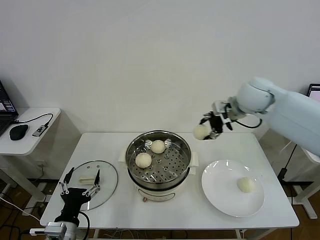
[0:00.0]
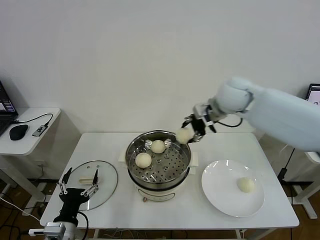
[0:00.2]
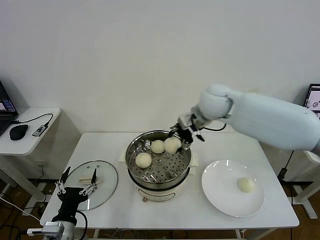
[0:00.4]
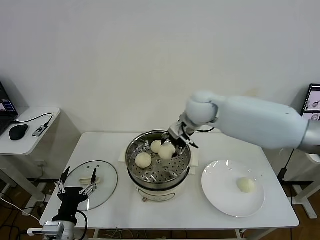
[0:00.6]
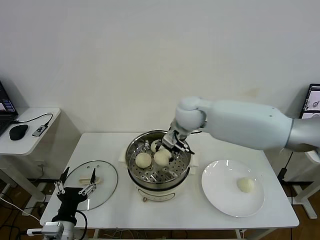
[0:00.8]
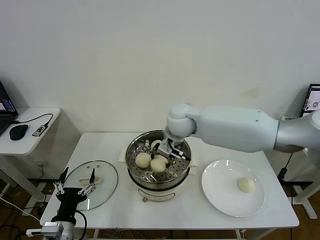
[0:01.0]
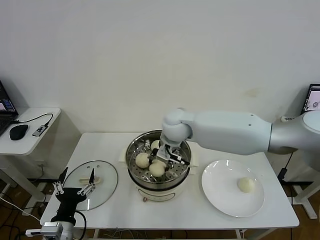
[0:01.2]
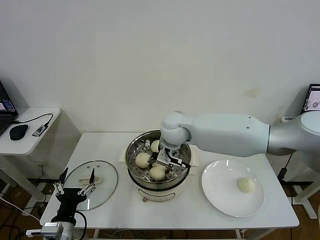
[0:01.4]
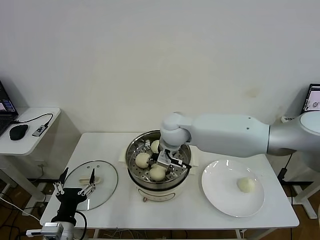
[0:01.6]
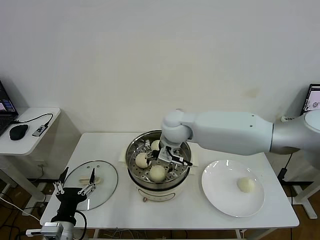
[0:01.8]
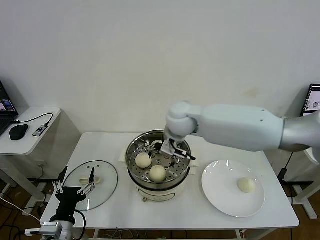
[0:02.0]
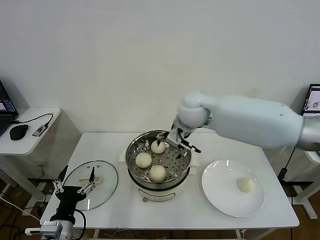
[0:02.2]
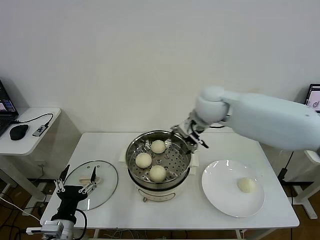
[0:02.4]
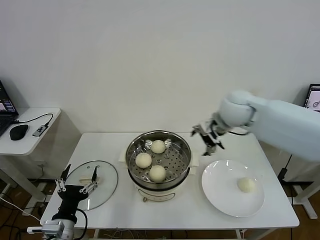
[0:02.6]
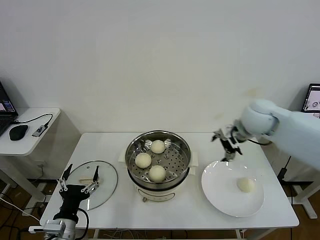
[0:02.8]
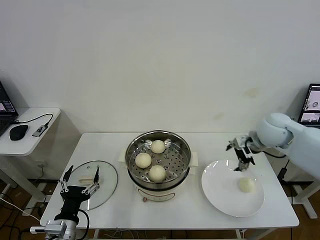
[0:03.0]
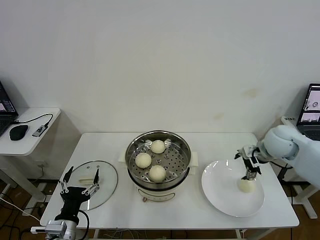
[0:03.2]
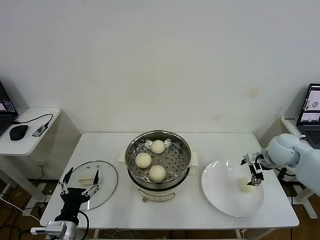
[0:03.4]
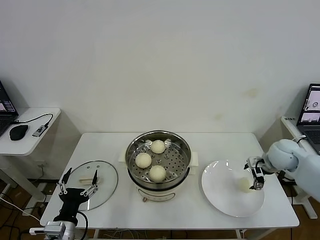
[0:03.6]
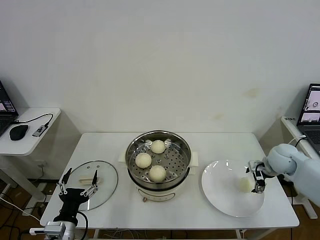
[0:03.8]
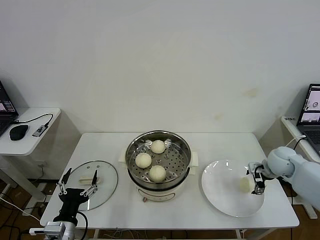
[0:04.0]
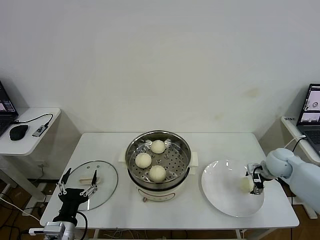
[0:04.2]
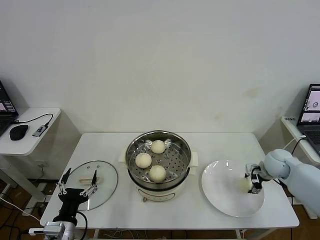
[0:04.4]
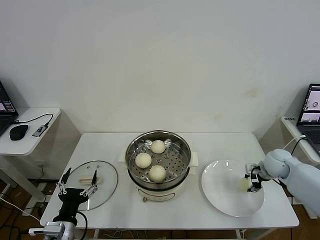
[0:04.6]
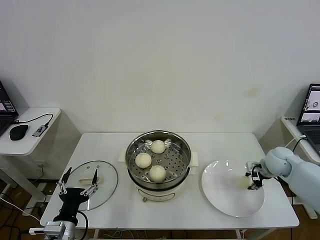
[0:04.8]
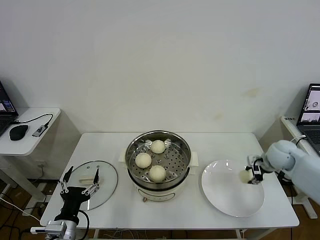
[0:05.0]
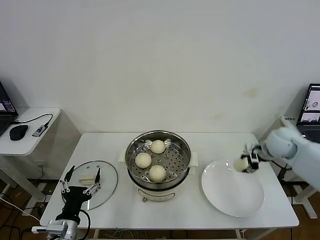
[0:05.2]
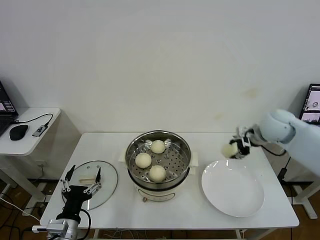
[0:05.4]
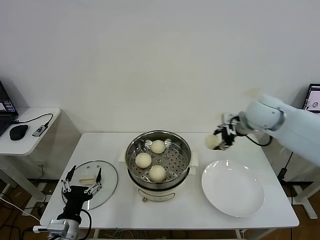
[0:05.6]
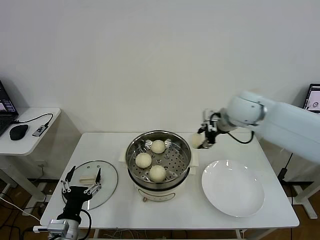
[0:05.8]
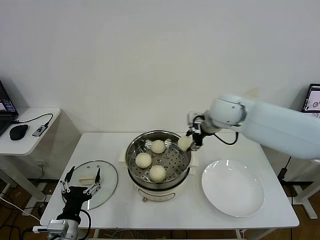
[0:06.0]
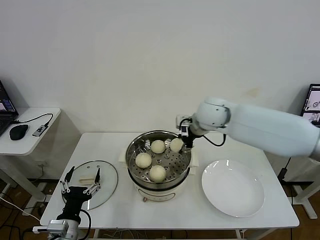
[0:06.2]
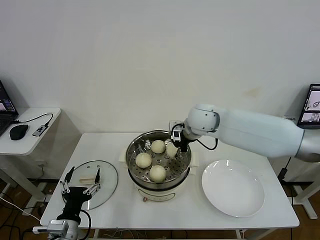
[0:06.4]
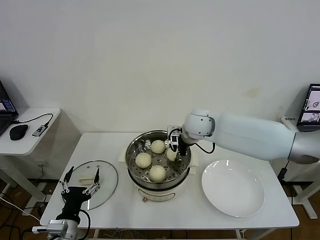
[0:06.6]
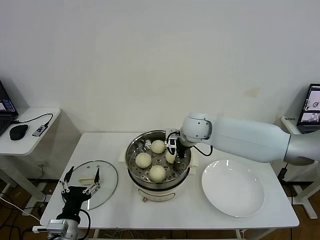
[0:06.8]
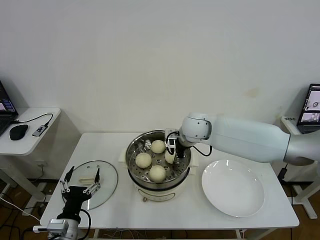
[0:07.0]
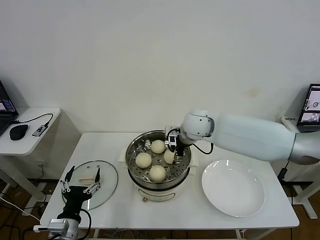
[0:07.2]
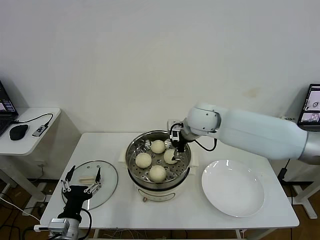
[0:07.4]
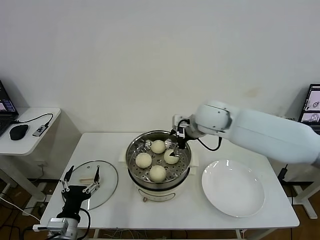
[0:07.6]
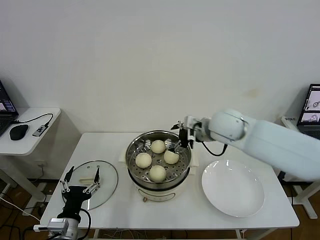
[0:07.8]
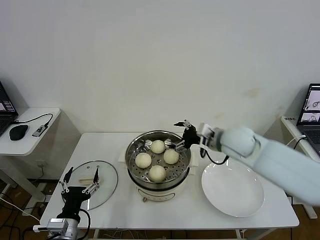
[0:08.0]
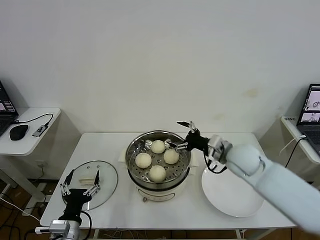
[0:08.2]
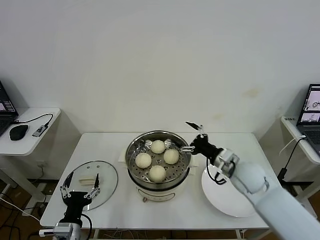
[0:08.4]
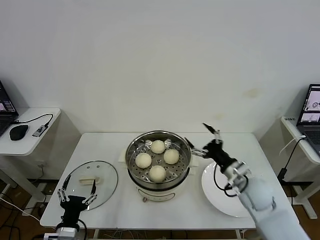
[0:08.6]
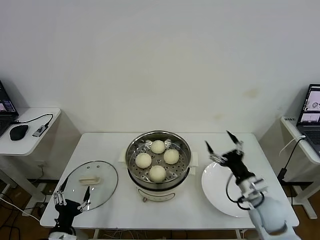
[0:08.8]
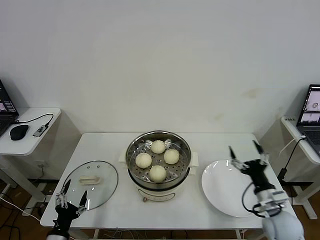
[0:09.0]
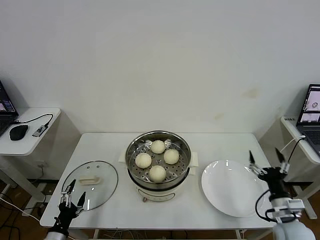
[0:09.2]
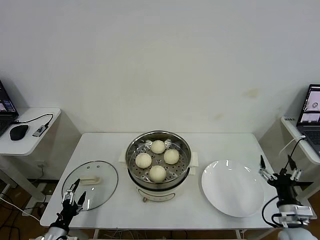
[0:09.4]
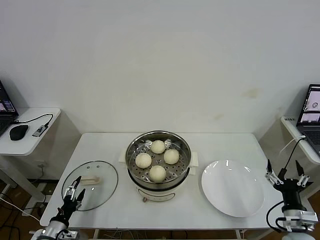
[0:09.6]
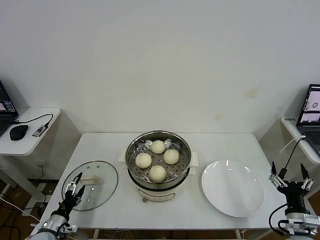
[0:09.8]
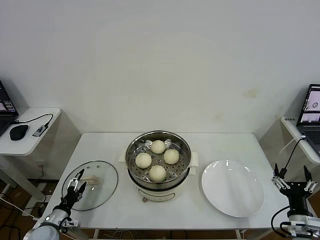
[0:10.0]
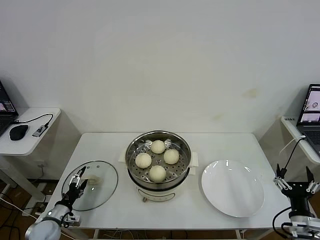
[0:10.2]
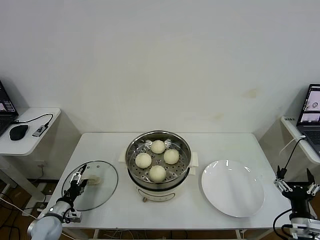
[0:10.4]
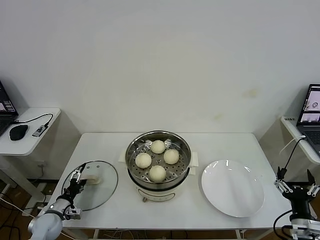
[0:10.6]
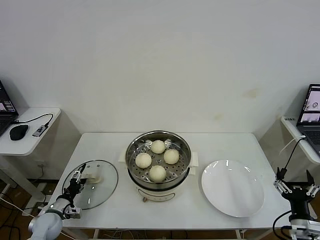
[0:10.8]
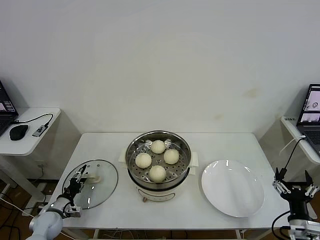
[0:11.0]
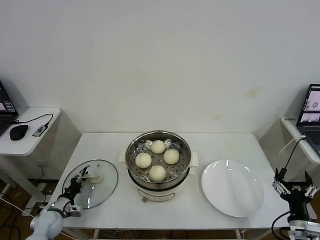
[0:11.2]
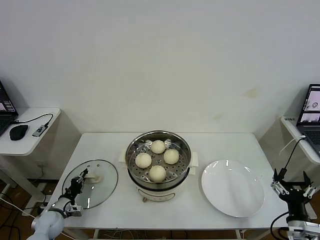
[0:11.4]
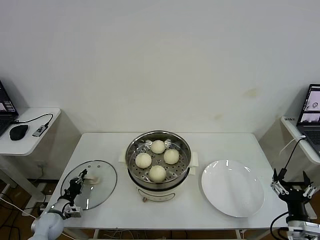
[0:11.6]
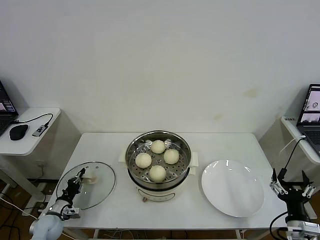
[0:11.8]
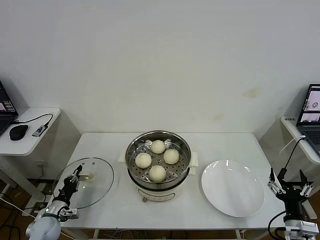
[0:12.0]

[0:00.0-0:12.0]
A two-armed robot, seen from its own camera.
Task of the whole recording: take steamed baozi put them in steamer then cover it.
Step, 0:00.0 to 0:01.8: Place the baozi on the steamer with right gripper.
Step, 0:02.0 to 0:04.6: Grasp the baozi in the plate with right gripper.
Step, 0:05.0 to 0:07.4: Place the baozi on the steamer with right gripper.
Step, 0:07.6 to 0:11.6: Grasp the pot lid with left gripper.
0:00.0 to 0:01.6: The right gripper shifts about 20 cm to the left and downward, and opens up.
0:01.6 to 0:03.0: The right gripper goes approximately 30 cm to the right, and opens.
0:03.0 to 0:04.4: The right gripper goes roughly 15 cm downward and to the right, and closes its fingers.
0:04.4 to 0:06.0: The right gripper heads to the left and upward, covering roughly 30 cm.
0:06.0 to 0:07.6: The right gripper opens its fingers.
0:07.6 to 0:09.0: The right gripper goes approximately 40 cm backward, downward and to the right. The left gripper moves downward and to the left, approximately 10 cm.
0:09.0 to 0:10.4: The left gripper travels forward, to the left and downward by about 15 cm. Meanwhile the right gripper moves backward and to the right, approximately 10 cm.
0:10.4 to 0:12.0: The left gripper closes.

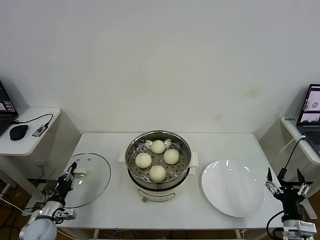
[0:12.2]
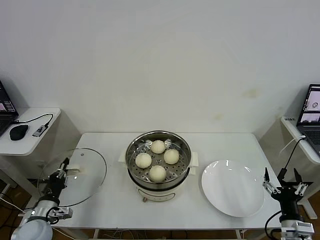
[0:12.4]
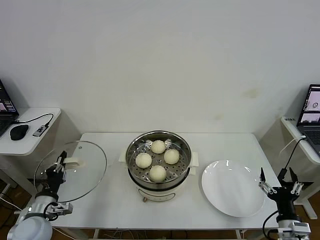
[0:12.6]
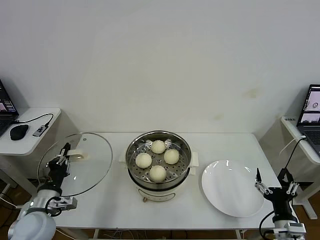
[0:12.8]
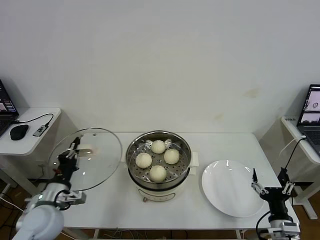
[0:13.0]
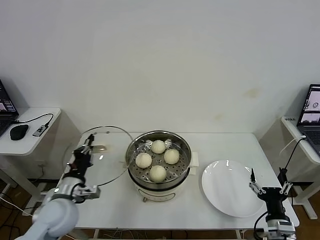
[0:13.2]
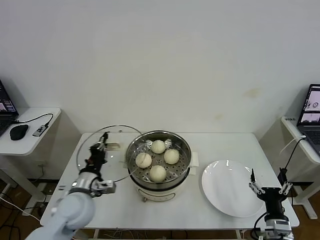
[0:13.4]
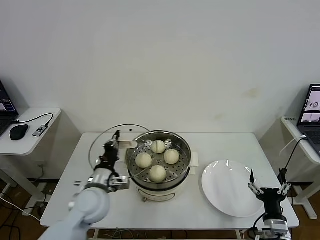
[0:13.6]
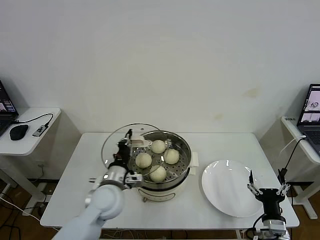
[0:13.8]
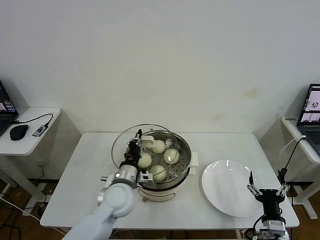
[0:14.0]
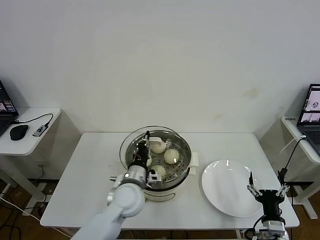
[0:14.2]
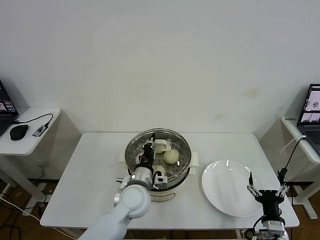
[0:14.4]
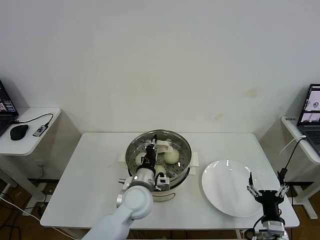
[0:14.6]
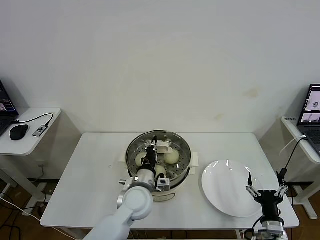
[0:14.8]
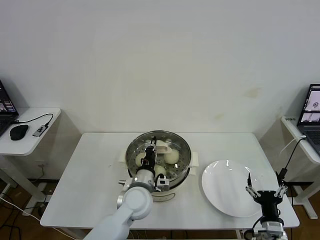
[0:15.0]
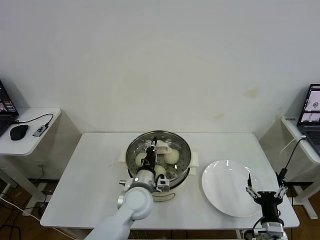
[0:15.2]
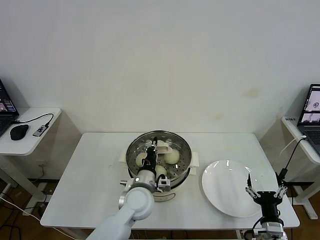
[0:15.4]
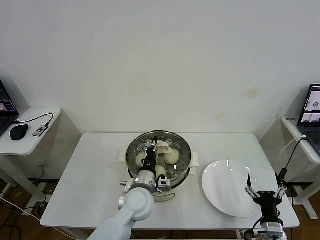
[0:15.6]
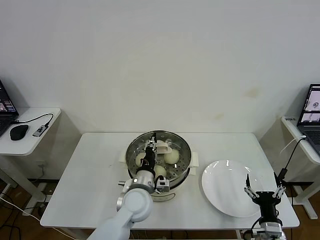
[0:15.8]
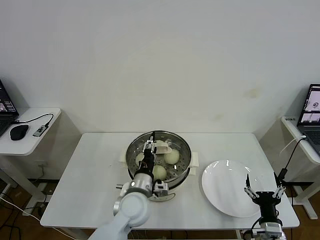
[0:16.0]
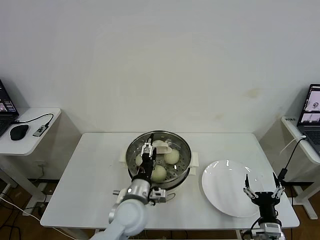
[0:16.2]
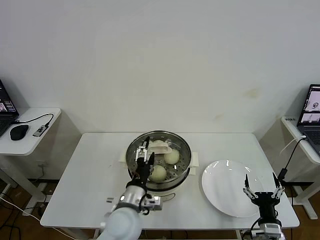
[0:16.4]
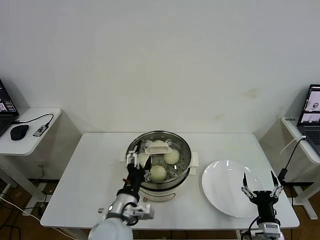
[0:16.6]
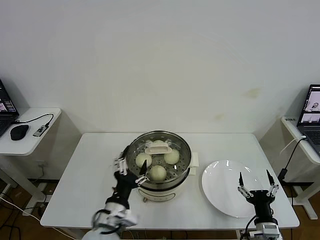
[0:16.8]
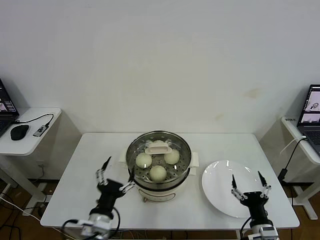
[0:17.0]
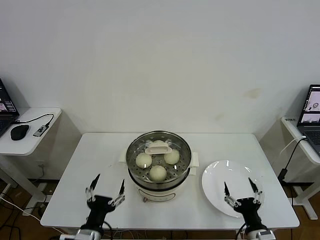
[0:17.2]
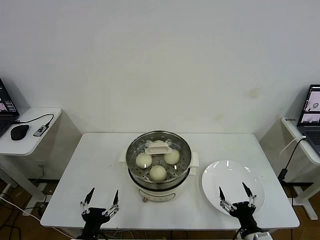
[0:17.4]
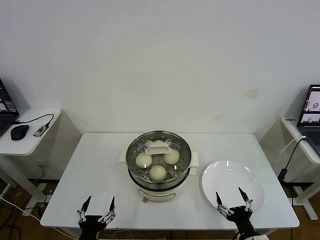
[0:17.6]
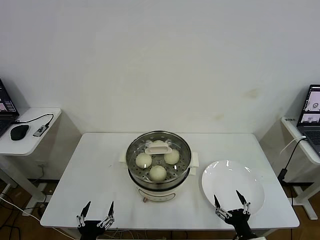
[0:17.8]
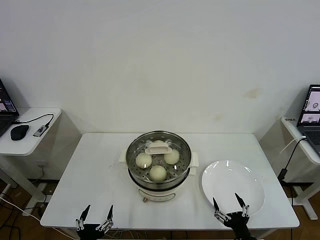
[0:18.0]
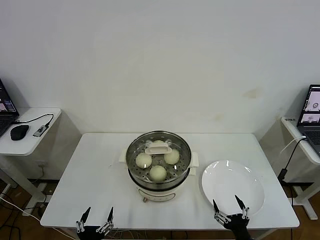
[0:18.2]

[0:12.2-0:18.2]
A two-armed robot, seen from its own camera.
Task of the whole recording: take steamed baozi put them in steamer then cover it.
Step, 0:12.2 to 0:16.4: Place the pot lid on the steamer with left gripper.
0:12.2 to 0:13.8: The left gripper moves to the right and upward, roughly 30 cm. The right gripper moves to the left, some 5 cm.
0:13.8 to 0:15.2: The left gripper goes some 10 cm to the right.
0:15.2 to 0:16.6: The left gripper is displaced backward by roughly 10 cm, and opens up.
0:16.6 to 0:18.2: The right gripper heads backward, covering approximately 5 cm. Meanwhile the left gripper is displaced backward, to the left and downward by approximately 25 cm.

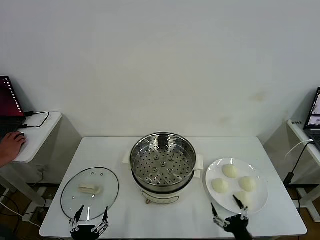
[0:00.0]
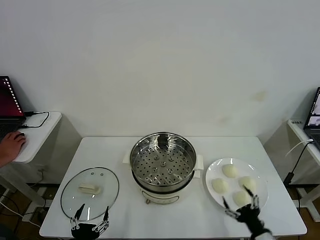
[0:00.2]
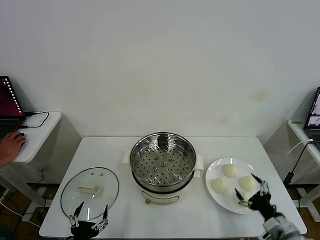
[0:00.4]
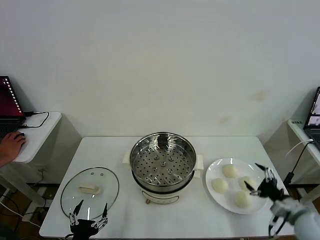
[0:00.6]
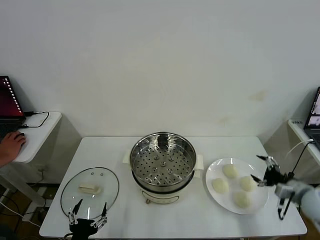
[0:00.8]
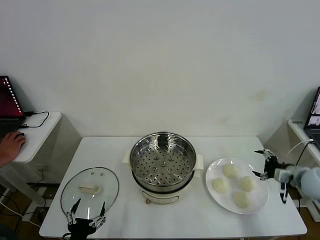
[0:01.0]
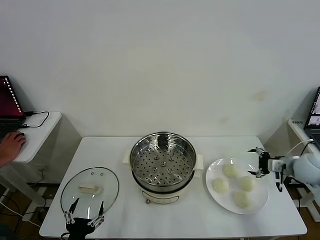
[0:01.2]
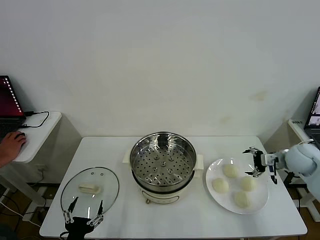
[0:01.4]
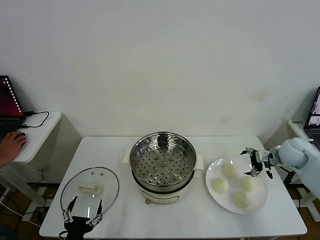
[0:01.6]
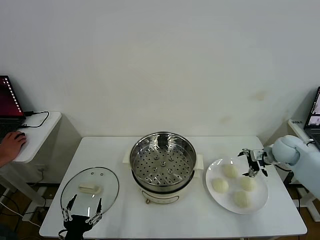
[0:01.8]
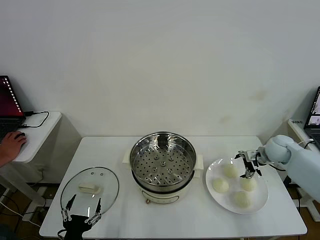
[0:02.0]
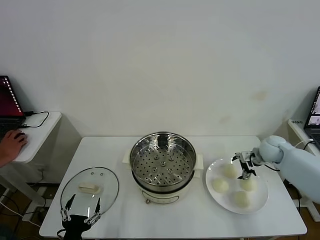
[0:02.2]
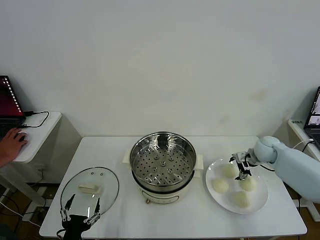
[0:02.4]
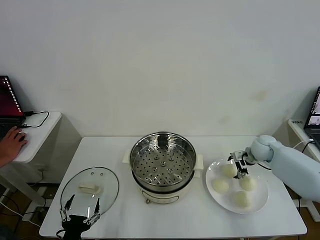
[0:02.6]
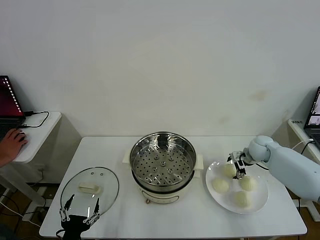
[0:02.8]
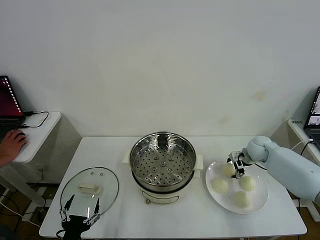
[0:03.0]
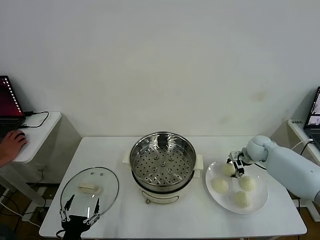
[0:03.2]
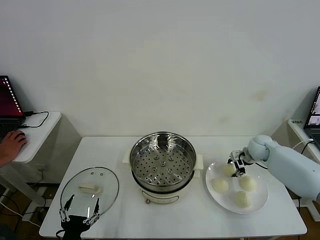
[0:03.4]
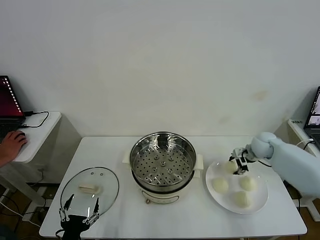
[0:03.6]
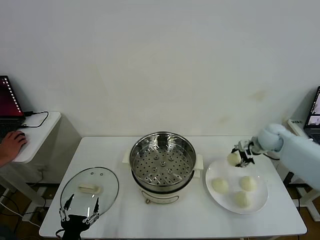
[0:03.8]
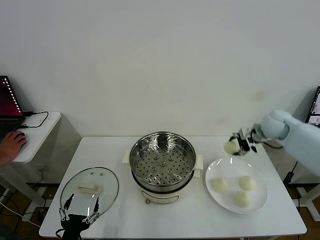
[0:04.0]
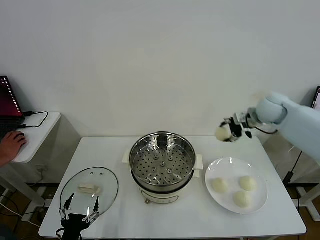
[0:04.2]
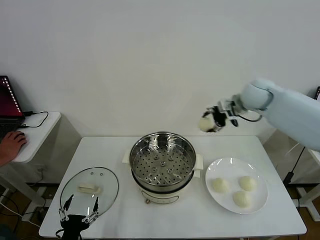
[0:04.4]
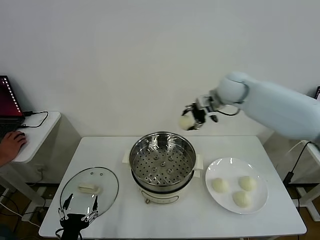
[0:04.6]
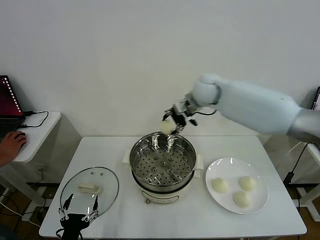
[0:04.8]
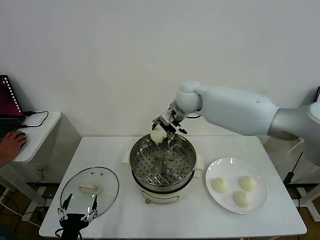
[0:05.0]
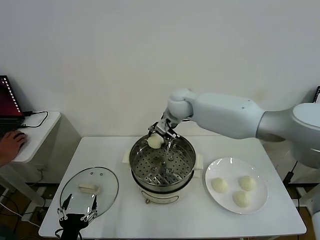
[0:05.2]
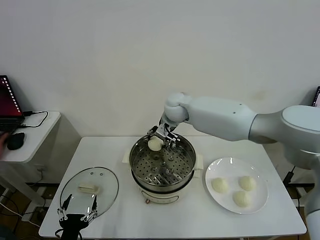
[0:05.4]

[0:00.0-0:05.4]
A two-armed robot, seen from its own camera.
Task of the whole recording: take steamed baozi put them in steamer then cover it.
Step, 0:00.0 to 0:03.4: Grasp the baozi in the plate with right gripper.
0:01.4 to 0:02.8: The right gripper shifts about 10 cm forward, to the left and downward.
0:02.8 to 0:04.0: The right gripper shifts about 15 cm upward, and closes its fingers.
0:04.0 to 0:05.4: The right gripper is displaced to the left by roughly 35 cm.
